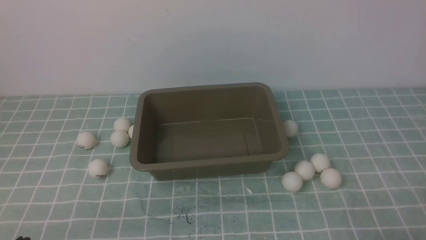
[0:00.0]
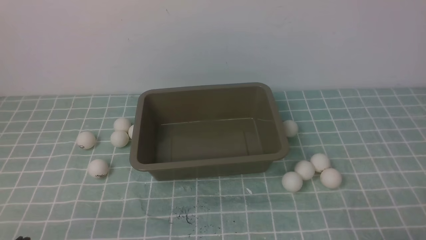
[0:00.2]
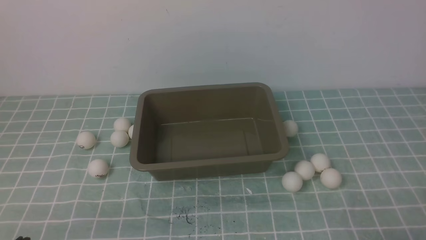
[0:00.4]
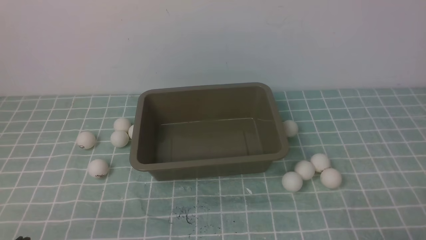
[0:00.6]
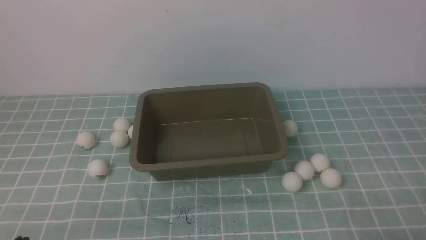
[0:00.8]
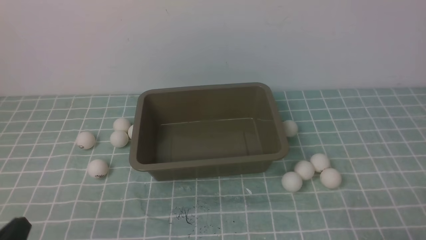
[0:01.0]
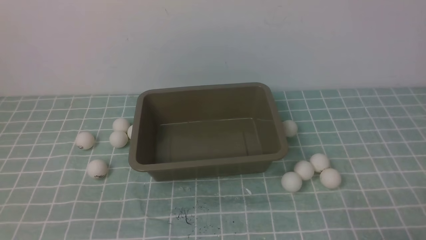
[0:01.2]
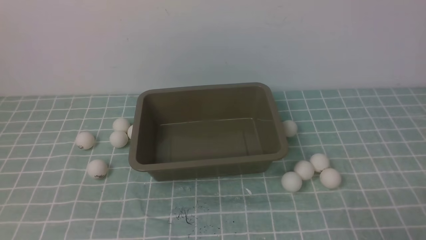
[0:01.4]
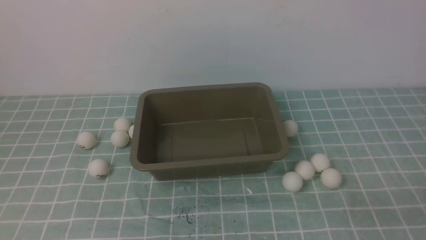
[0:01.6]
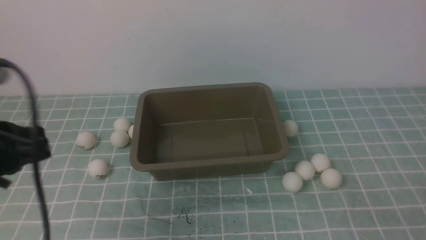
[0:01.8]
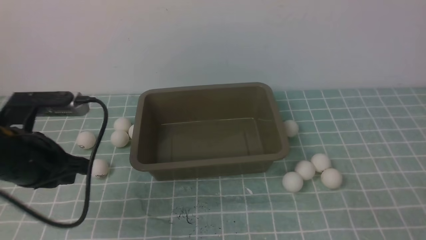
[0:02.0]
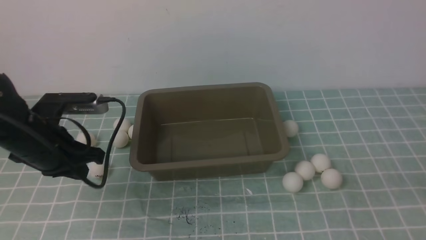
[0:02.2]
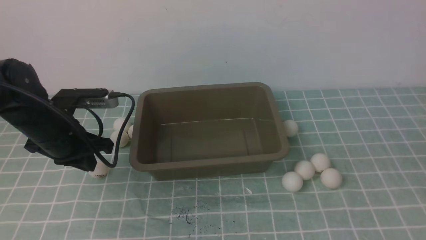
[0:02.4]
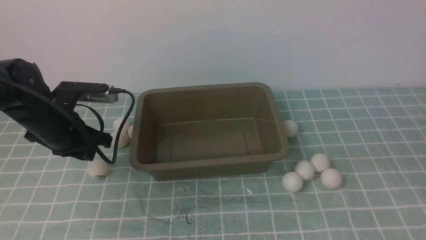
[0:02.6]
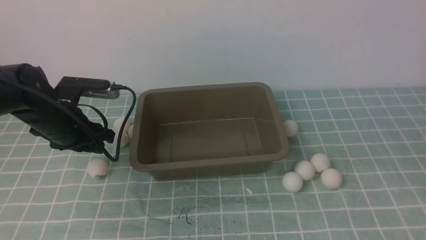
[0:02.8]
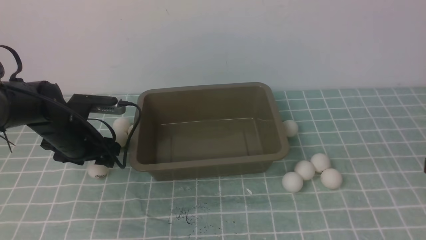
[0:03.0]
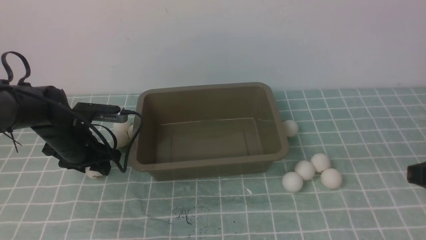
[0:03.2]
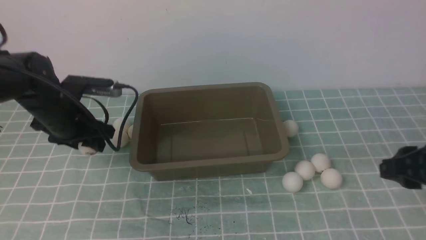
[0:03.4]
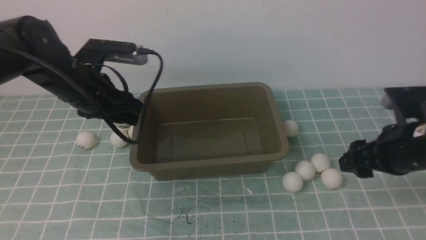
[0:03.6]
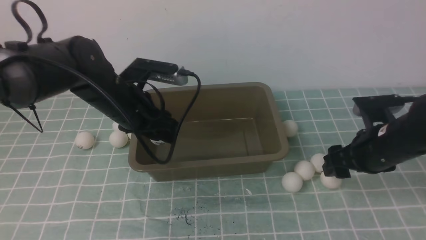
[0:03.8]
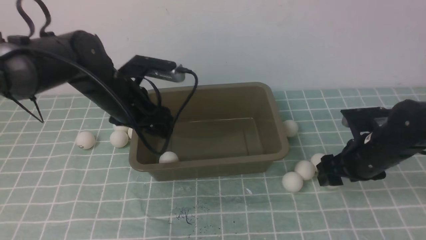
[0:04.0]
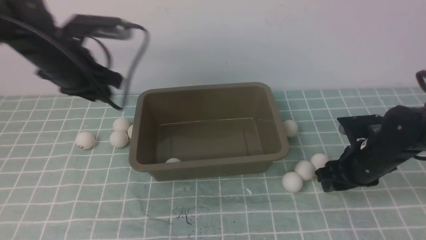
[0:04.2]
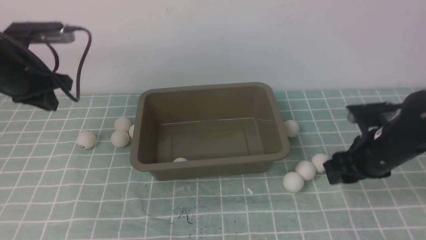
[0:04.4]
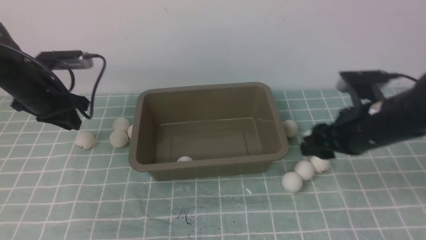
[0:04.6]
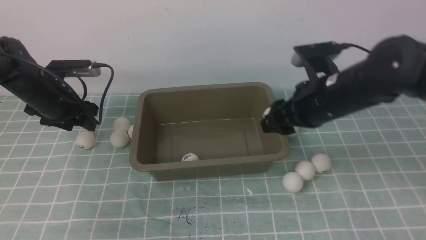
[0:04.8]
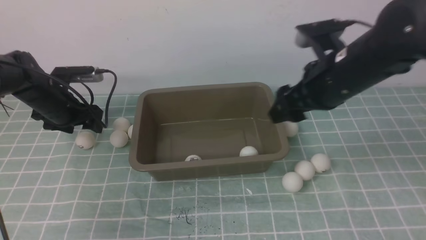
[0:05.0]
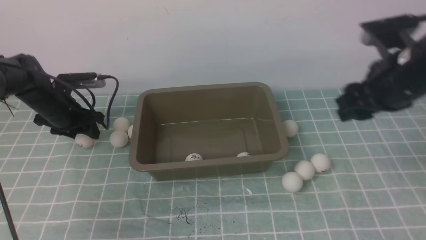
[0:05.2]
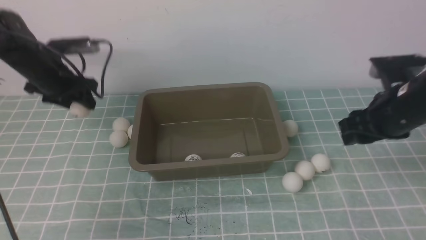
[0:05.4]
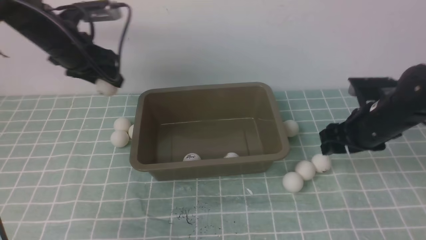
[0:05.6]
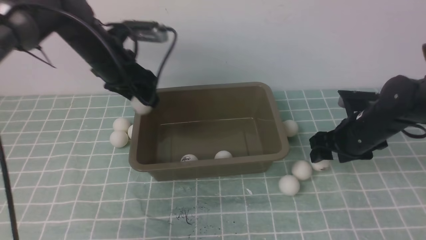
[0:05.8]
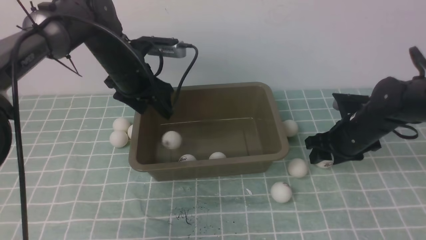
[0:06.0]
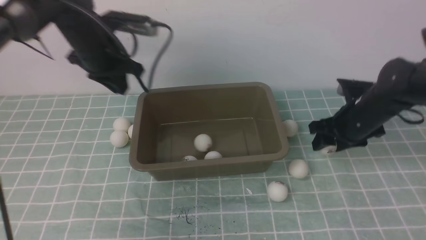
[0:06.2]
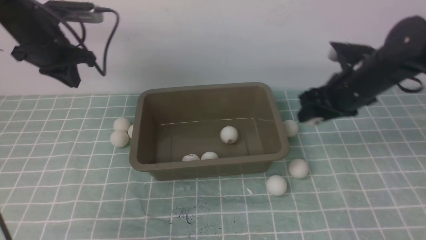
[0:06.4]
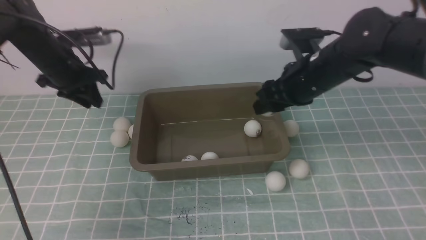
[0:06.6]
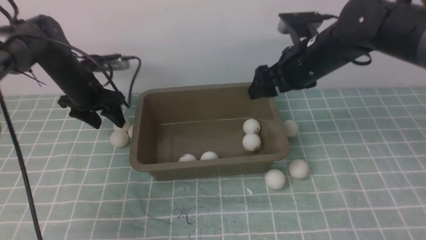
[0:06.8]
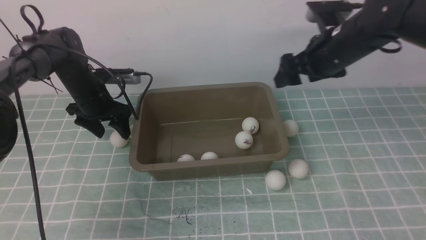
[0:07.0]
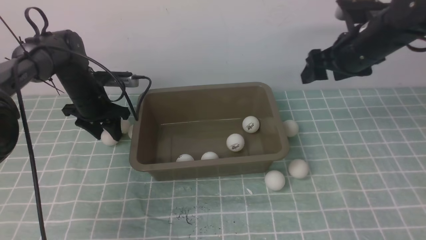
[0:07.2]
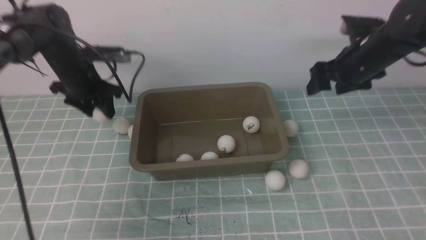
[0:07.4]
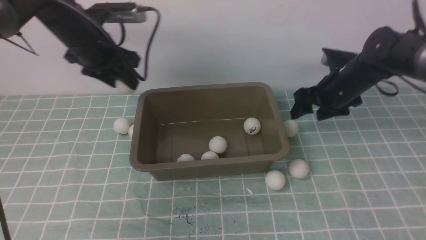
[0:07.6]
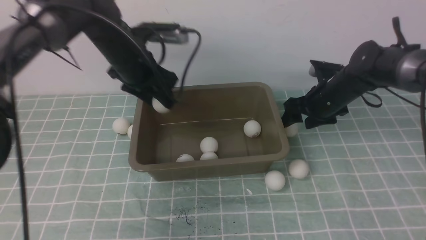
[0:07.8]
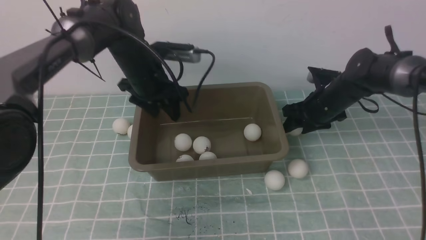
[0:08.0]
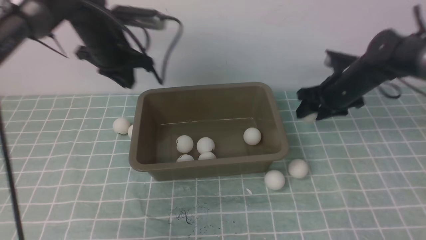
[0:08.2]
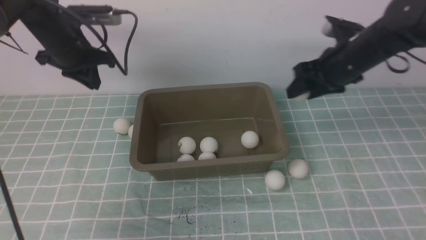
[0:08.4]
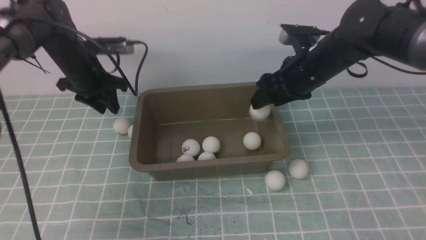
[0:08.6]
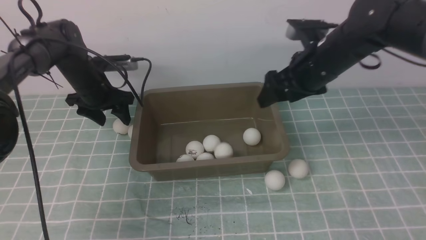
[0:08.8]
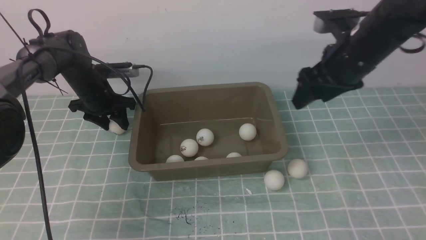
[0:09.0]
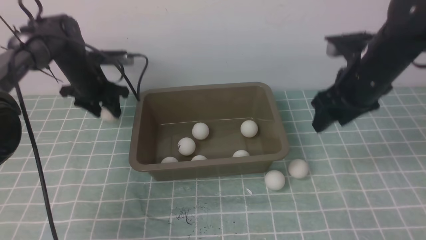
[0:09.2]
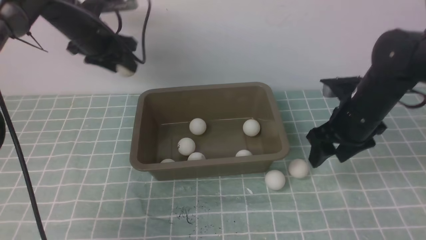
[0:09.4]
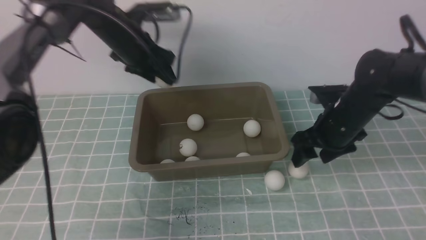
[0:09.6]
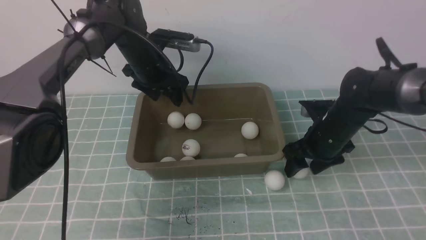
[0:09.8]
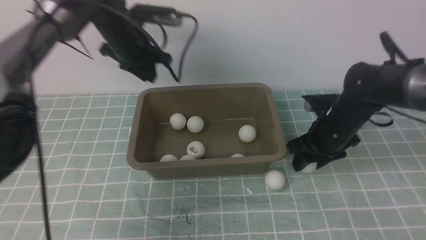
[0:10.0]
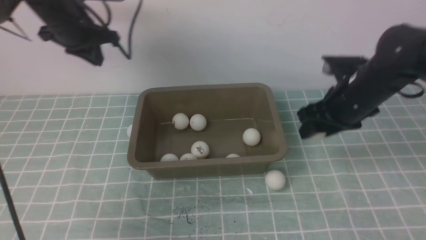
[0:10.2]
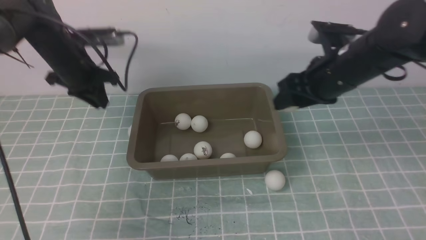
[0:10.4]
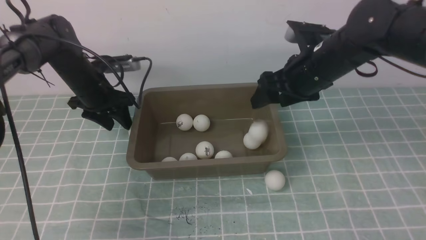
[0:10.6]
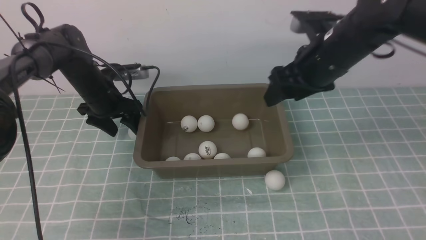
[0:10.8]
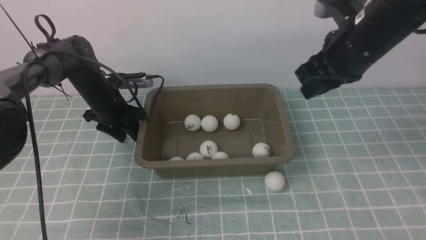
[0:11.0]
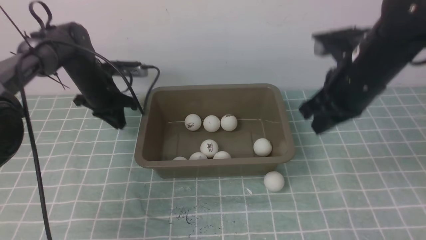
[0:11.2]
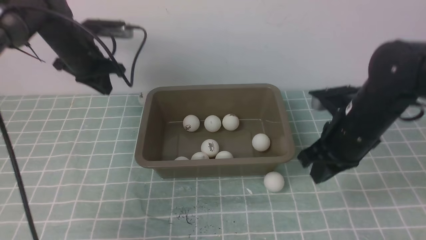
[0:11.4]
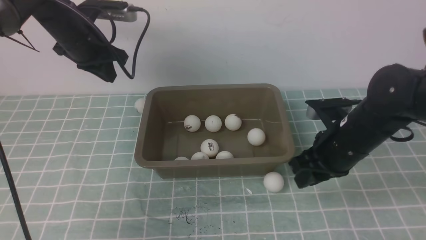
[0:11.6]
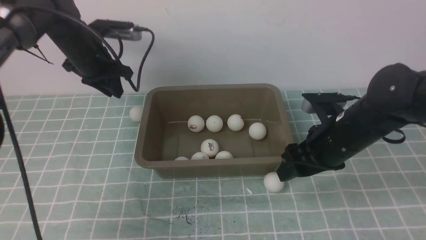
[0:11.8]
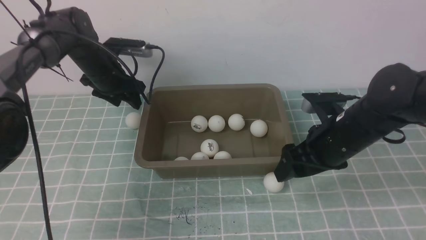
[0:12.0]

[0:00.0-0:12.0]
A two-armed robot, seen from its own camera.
Step, 0:00.0 to 0:02.6: use the left arm to clamp the table tennis ball closest to it.
Step, 0:02.8 to 0:04.0: use the left arm to put the table tennis ball into the box.
Step, 0:04.2 to 0:04.4: use the right arm to clamp the table tennis ball closest to it.
Step, 0:04.6 to 0:04.8: use the right arm to put the table tennis ball into the box.
Step, 0:05.4 to 0:06.0: use the left arm to put the table tennis ball into the box.
Step, 0:06.2 to 0:06.4: use the right arm to clamp the table tennis ball closest to it.
Step, 0:06.6 to 0:07.0: use the right arm to put the table tennis ball into the box.
Step, 0:07.4 to 0:07.8: use the left arm to put the table tennis ball into the box.
Step, 0:08.0 to 0:08.2: use the right arm to clamp the table tennis ball closest to it.
Step, 0:08.4 to 0:08.8: use the right arm to put the table tennis ball into the box.
Step, 0:09.0 to 0:09.2: use the left arm to clamp the table tennis ball closest to it.
Step, 0:09.4 to 0:09.8: use the left arm to put the table tennis ball into the box.
Step, 0:10.2 to 0:10.6: use the right arm to put the table tennis ball into the box.
0:01.6 to 0:03.0: The left gripper shifts some 30 cm forward and downward, and opens up. The right gripper heads upward and forward, covering approximately 15 cm.
0:03.0 to 0:04.4: The left gripper is displaced upward by about 10 cm, goes to the right and returns, some 10 cm each way, and closes, while the right gripper travels forward, downward and to the left by approximately 20 cm, and opens its fingers.
0:04.4 to 0:06.0: The right gripper travels forward by approximately 5 cm, and goes upward and returns, about 10 cm each way. The left gripper goes about 10 cm to the right, and opens its fingers.
0:06.0 to 0:07.6: The right gripper travels forward by roughly 5 cm, and reaches roughly 10 cm upward, then returns. Meanwhile the left gripper travels downward and back again, some 10 cm each way, and closes, then opens again.
0:07.6 to 0:09.0: The left gripper goes approximately 10 cm downward and to the left, and closes, then reopens. The right gripper is displaced upward and backward by some 10 cm.
0:09.0 to 0:10.4: The right gripper travels downward and back again, roughly 10 cm each way; the left gripper is displaced upward by roughly 5 cm, and closes up.
0:10.4 to 0:12.0: The right gripper moves backward and downward, some 10 cm, and closes and opens again, while the left gripper goes up and down, approximately 10 cm each way, reversing 2 times, and opens its fingers.

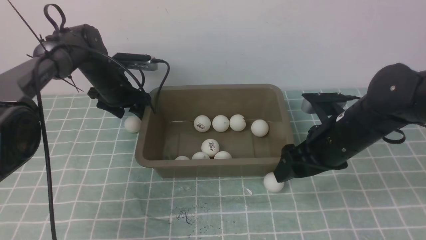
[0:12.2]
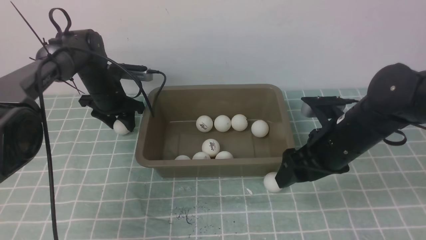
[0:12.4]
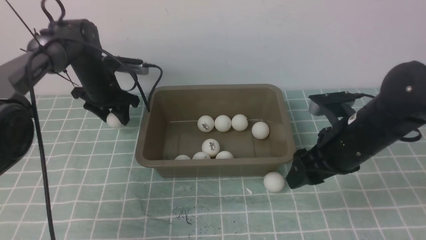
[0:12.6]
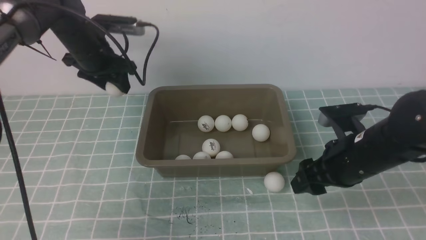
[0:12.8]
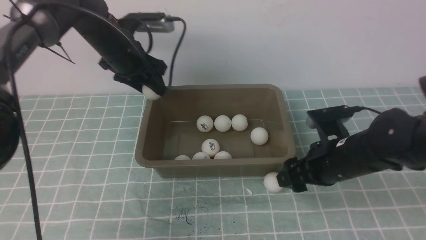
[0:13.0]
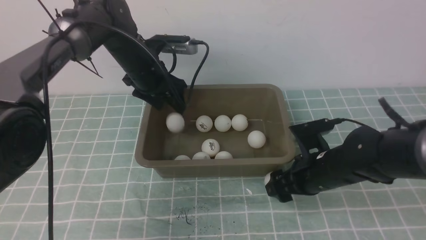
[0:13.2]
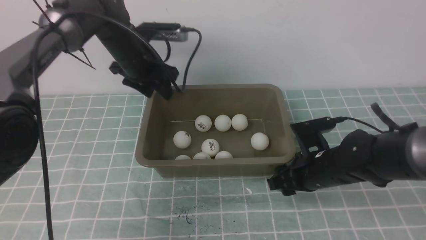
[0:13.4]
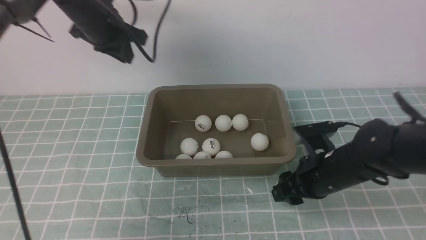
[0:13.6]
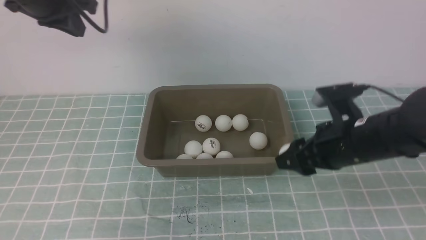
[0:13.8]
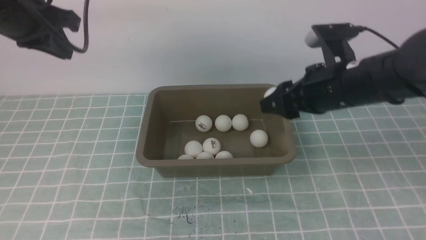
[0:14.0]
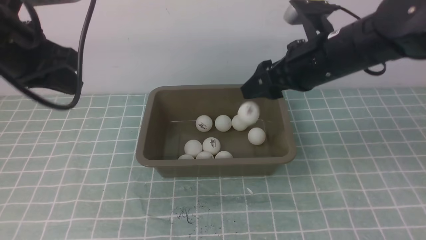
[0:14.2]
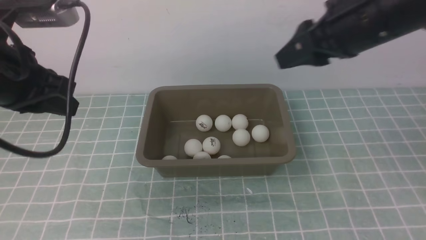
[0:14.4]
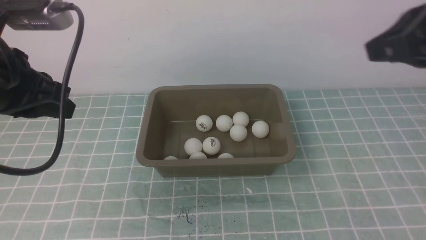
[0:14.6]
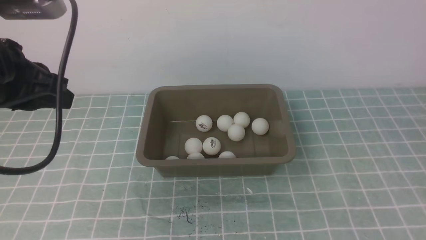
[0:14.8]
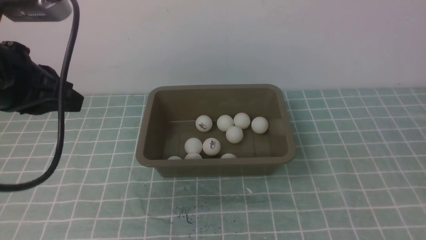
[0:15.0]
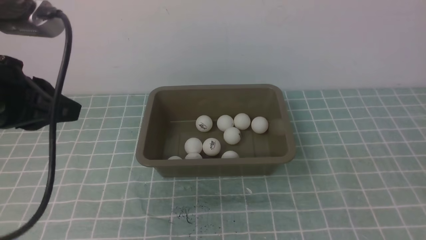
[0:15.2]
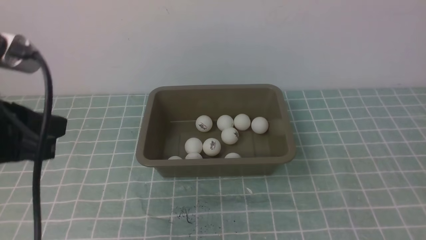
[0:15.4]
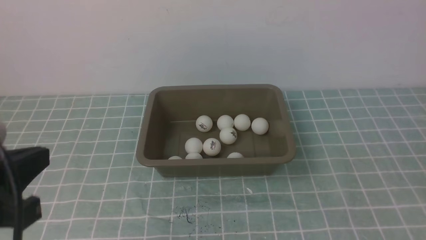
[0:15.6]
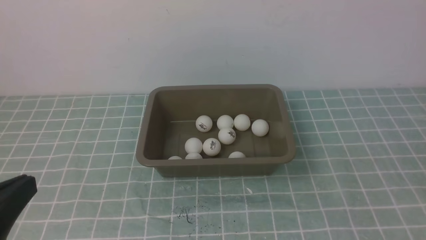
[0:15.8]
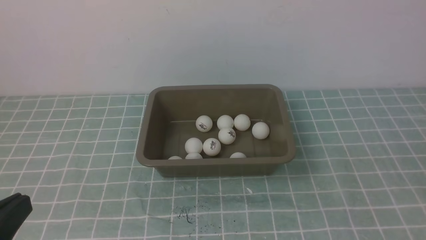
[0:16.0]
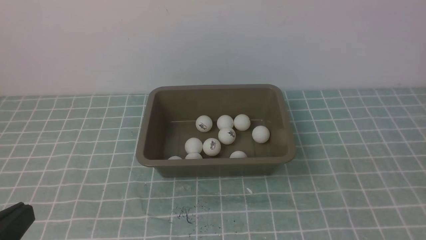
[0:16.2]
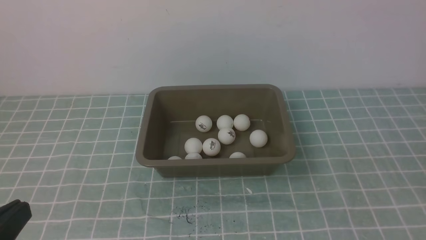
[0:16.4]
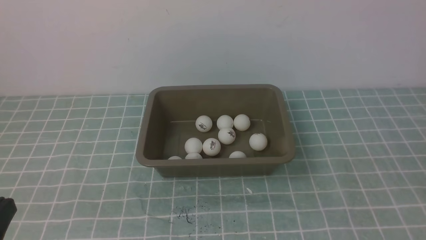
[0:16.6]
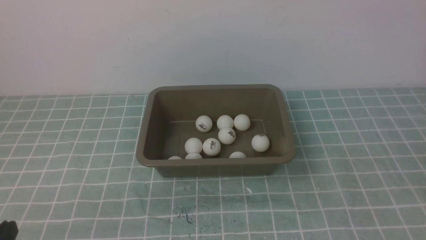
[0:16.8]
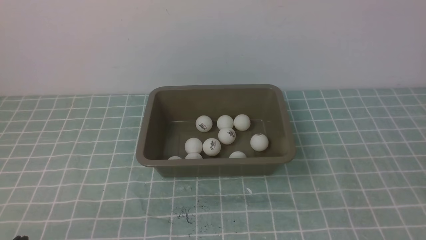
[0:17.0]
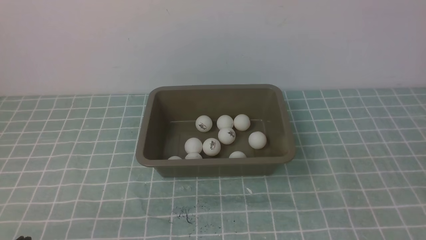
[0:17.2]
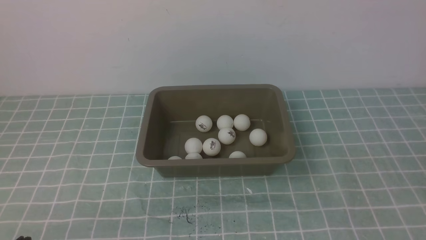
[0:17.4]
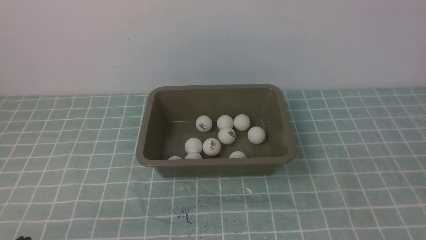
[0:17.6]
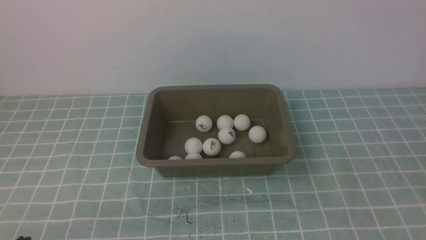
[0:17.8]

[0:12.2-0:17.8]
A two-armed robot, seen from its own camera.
Step, 0:12.8 to 0:13.2: use the left arm to put the table tennis ball into the box.
Step, 0:13.4 to 0:13.6: use the right arm to clamp the table tennis ball closest to it.
Step, 0:13.8 to 0:14.8: use the right arm to put the table tennis ball into the box.
0:12.2 to 0:13.6: The left gripper travels upward by approximately 15 cm, and closes its fingers; the right gripper closes its fingers.
0:13.6 to 0:15.0: The left gripper heads backward, covering approximately 20 cm. Meanwhile the right gripper moves backward, upward and to the right, approximately 30 cm, and closes up.
0:15.0 to 0:16.4: The left gripper moves backward and downward, about 20 cm.
0:16.4 to 0:17.8: The left gripper shifts approximately 10 cm downward.
